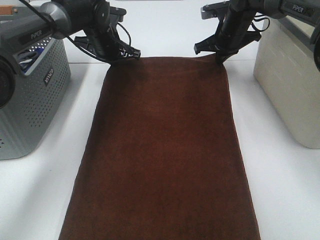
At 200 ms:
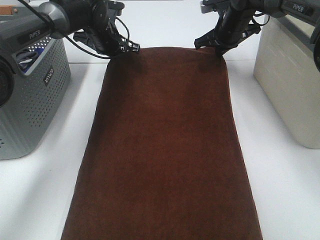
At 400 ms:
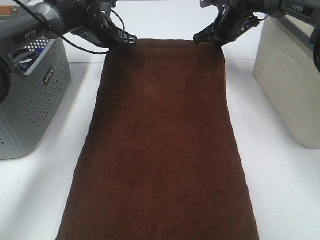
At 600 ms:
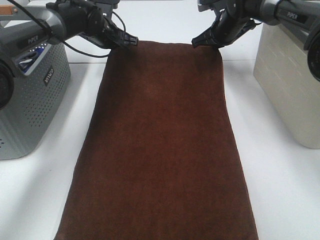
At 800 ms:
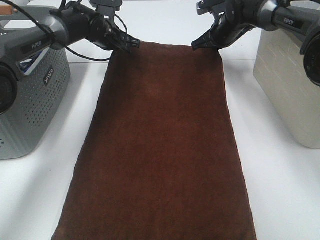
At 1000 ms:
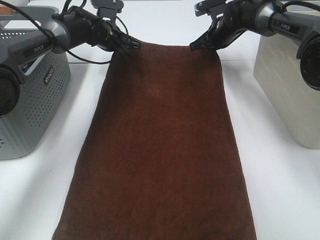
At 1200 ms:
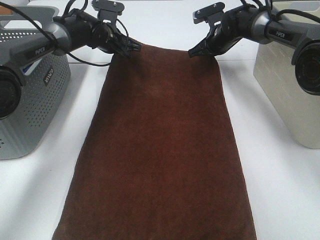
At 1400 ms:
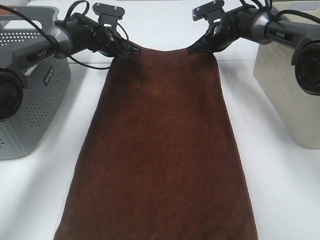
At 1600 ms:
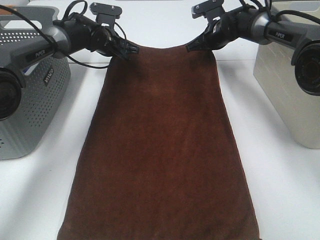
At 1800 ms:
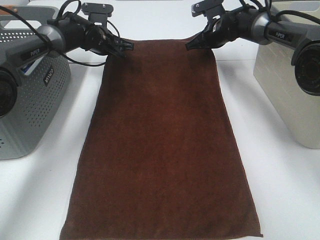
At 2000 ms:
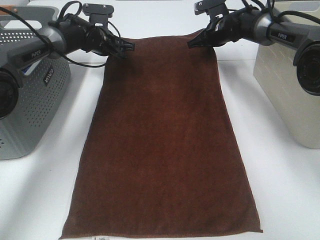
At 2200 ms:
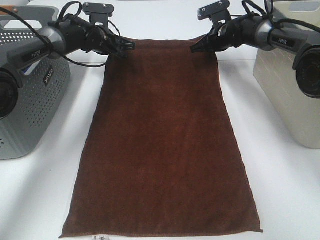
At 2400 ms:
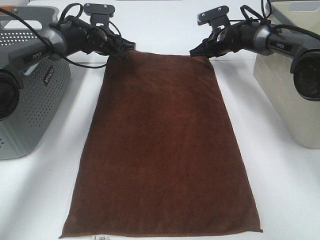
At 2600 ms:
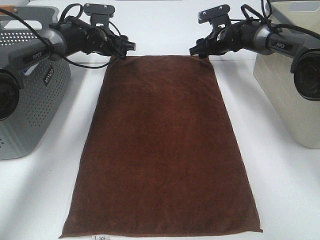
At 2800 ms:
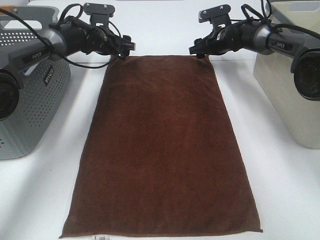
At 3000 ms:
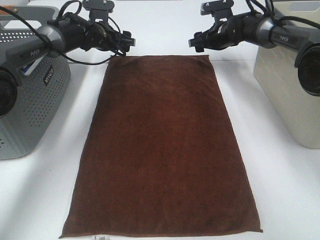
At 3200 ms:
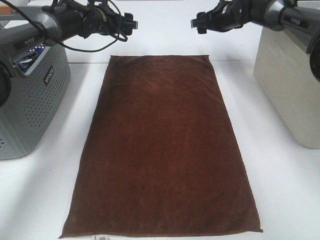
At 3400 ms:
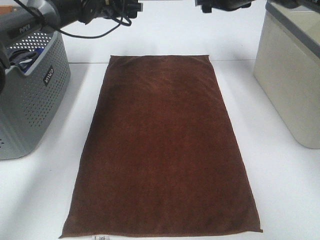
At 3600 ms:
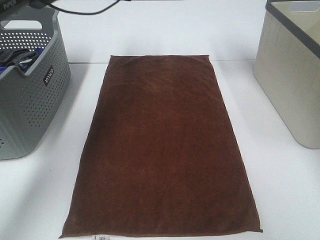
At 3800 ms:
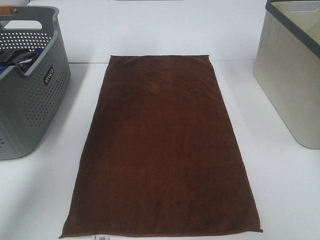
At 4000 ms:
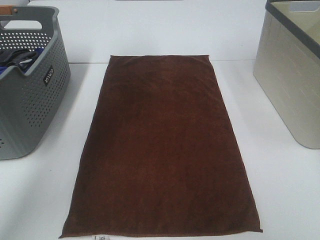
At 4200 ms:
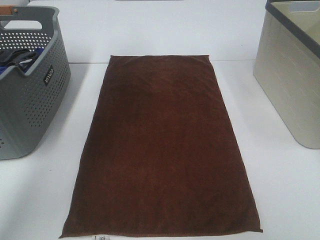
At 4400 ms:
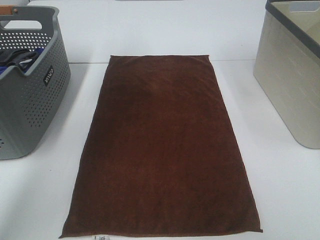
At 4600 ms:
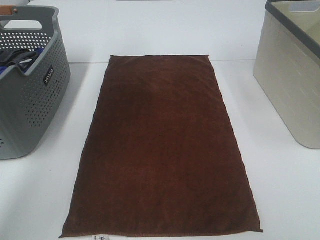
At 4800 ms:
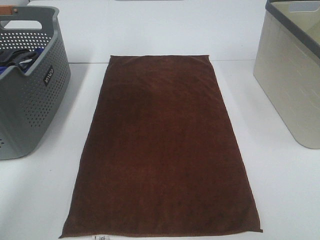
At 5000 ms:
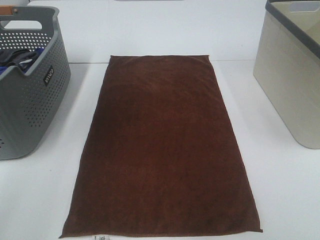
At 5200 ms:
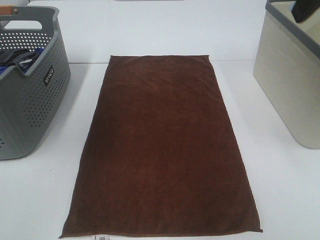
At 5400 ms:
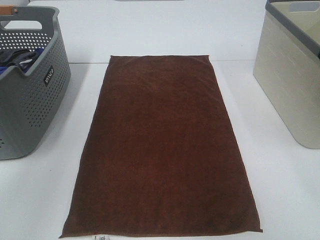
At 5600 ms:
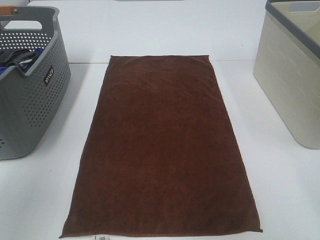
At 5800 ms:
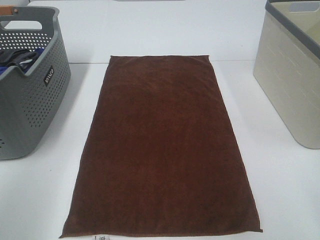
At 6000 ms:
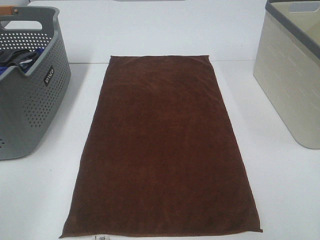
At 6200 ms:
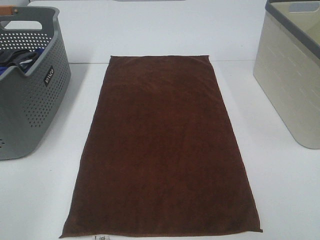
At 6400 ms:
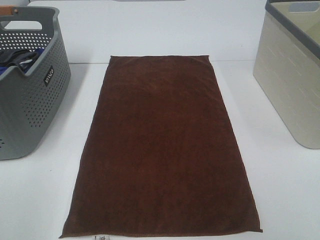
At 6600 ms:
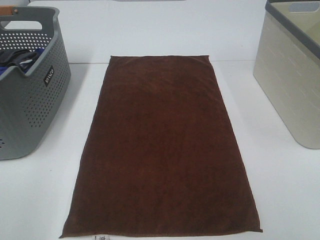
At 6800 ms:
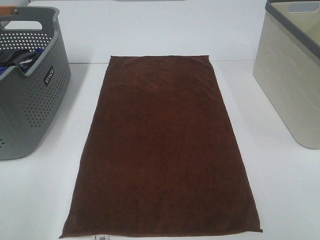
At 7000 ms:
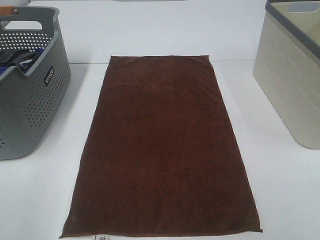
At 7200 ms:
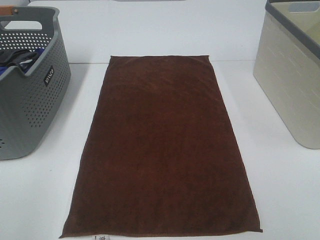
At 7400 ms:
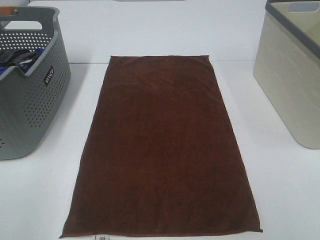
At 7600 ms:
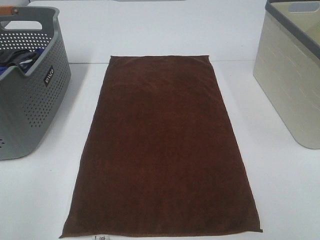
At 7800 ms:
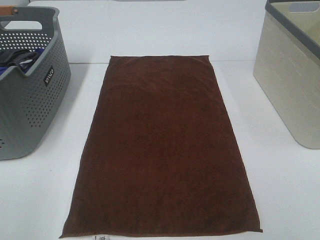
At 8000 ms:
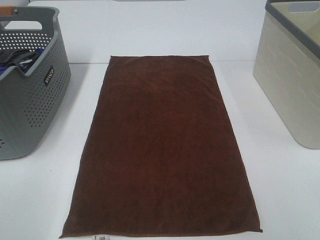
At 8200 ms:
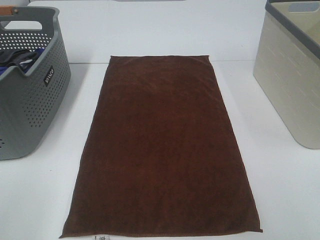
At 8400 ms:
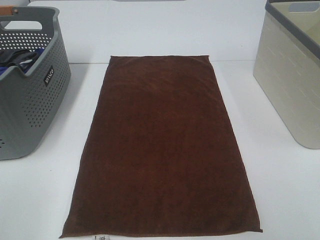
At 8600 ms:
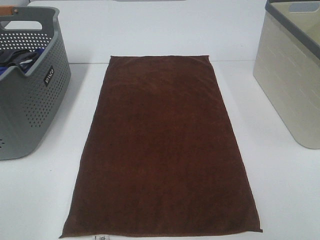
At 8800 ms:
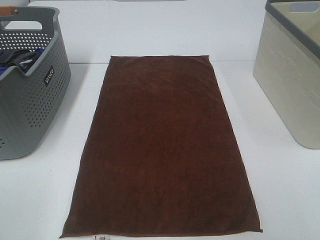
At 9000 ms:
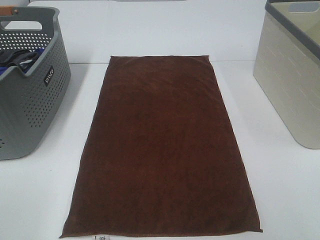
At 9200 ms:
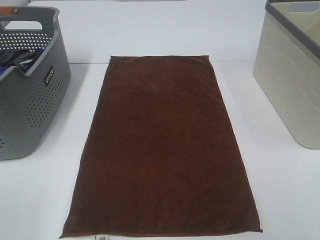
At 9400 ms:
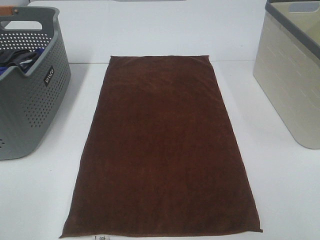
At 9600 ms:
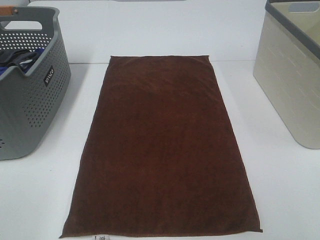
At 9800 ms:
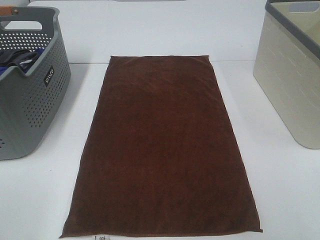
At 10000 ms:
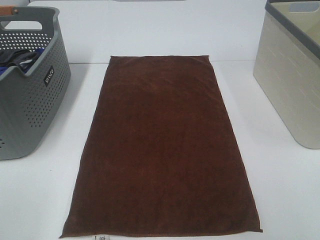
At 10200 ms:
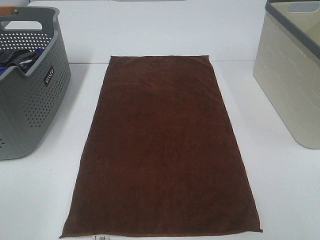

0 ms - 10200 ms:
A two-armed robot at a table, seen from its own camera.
Task of the whole recording: Remove the towel and place it.
0 ms - 1400 ms: The right gripper moves some 5 cm.
1400 ms - 3000 ms: The right gripper opens its fingers; the left gripper opens its fingers.
3000 ms - 4400 ms: The grippers both shift upward and backward by about 30 cm.
4400 ms - 5800 ms: Both grippers move backward, roughly 35 cm.
8800 ms - 10200 ms: Both grippers stay about where they are.

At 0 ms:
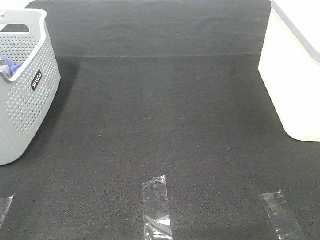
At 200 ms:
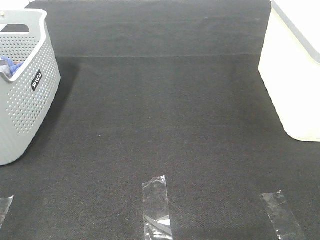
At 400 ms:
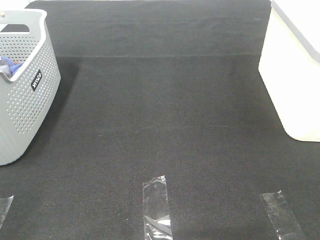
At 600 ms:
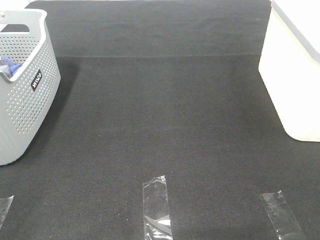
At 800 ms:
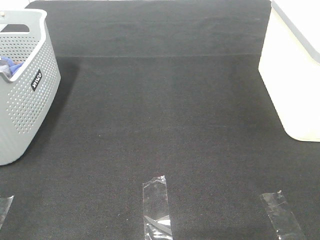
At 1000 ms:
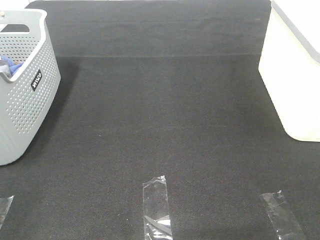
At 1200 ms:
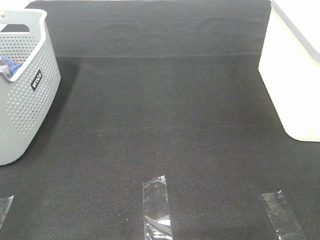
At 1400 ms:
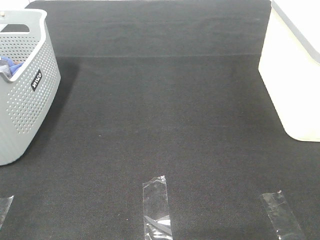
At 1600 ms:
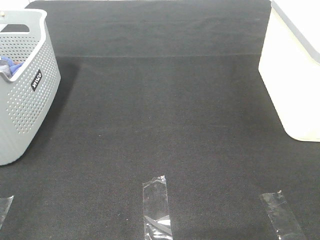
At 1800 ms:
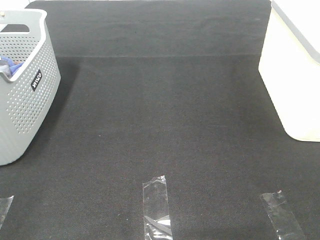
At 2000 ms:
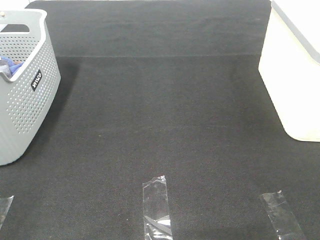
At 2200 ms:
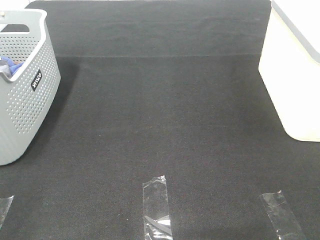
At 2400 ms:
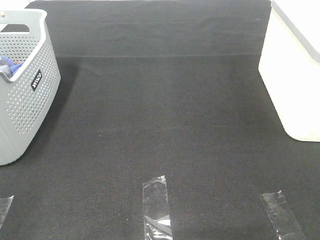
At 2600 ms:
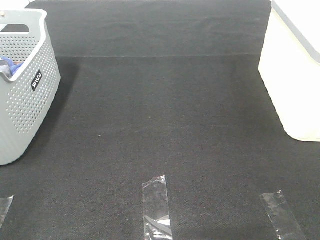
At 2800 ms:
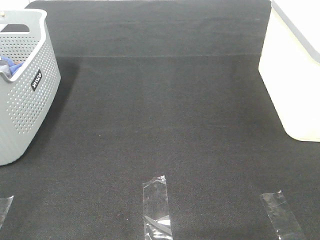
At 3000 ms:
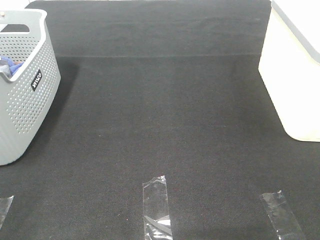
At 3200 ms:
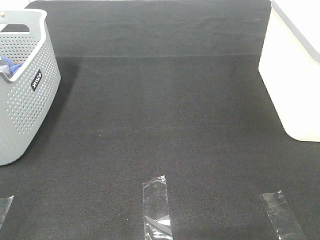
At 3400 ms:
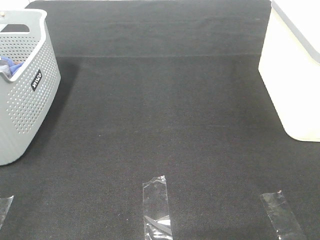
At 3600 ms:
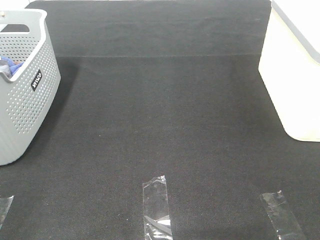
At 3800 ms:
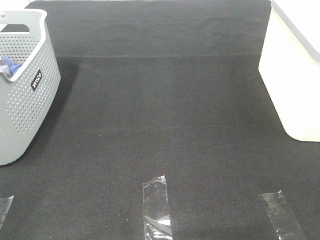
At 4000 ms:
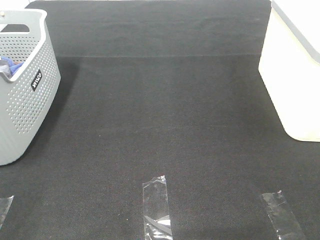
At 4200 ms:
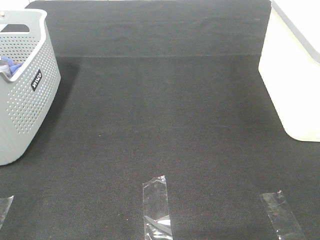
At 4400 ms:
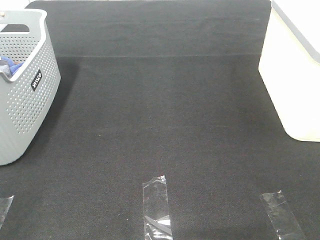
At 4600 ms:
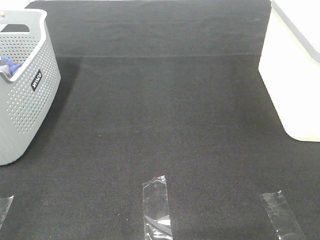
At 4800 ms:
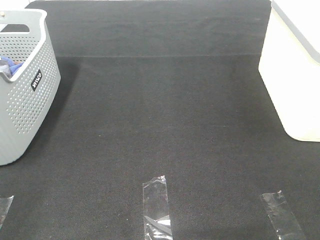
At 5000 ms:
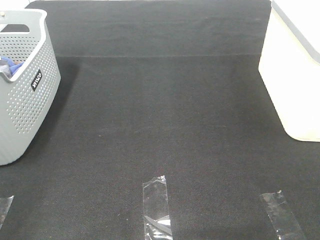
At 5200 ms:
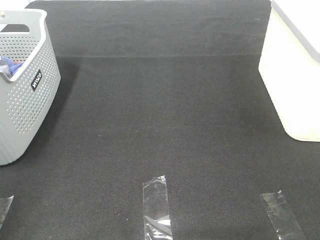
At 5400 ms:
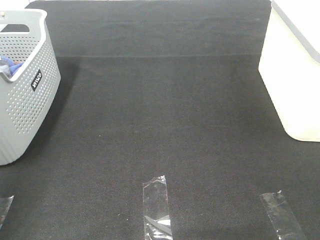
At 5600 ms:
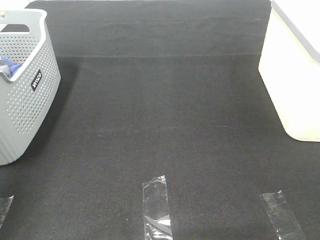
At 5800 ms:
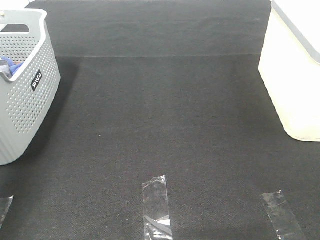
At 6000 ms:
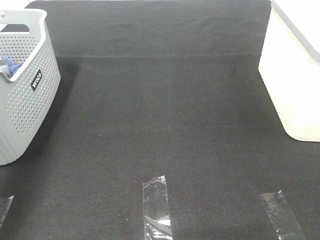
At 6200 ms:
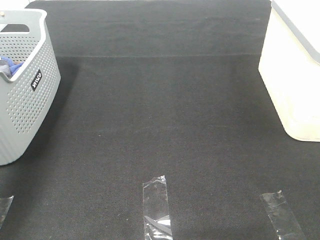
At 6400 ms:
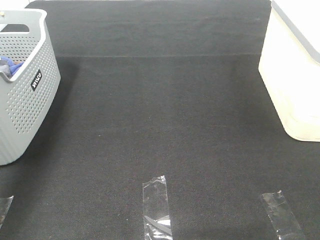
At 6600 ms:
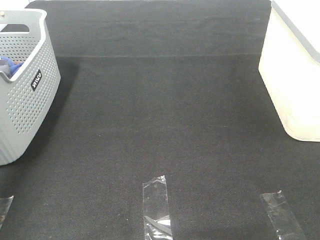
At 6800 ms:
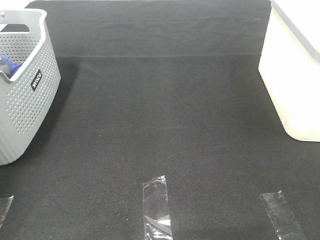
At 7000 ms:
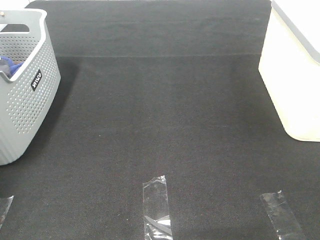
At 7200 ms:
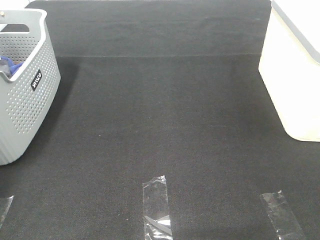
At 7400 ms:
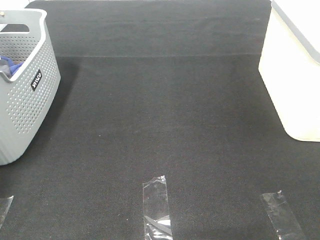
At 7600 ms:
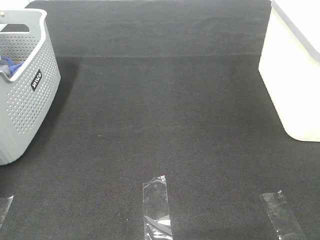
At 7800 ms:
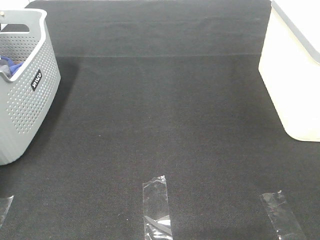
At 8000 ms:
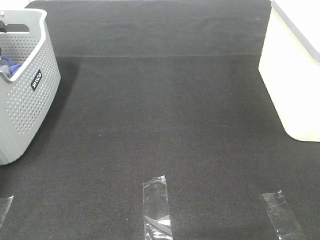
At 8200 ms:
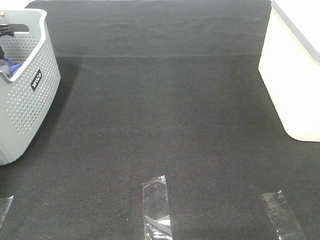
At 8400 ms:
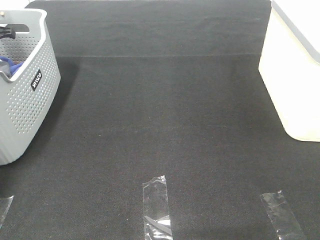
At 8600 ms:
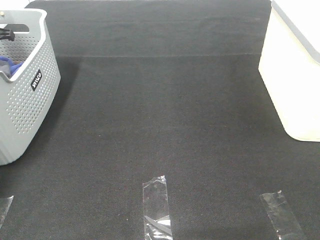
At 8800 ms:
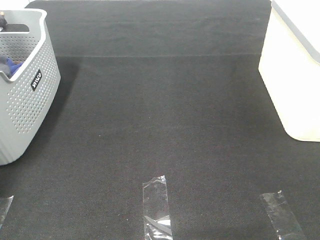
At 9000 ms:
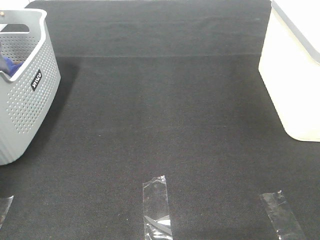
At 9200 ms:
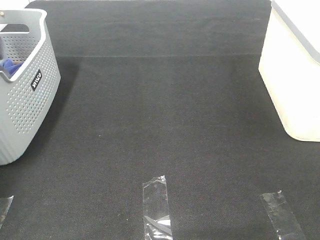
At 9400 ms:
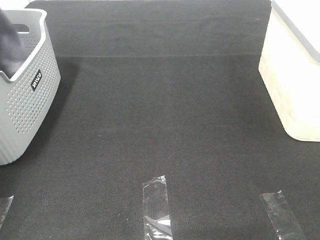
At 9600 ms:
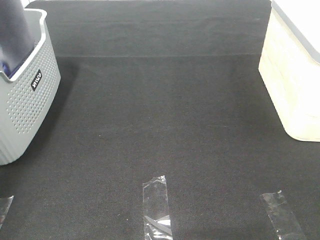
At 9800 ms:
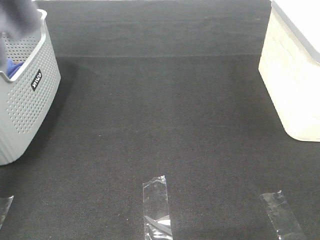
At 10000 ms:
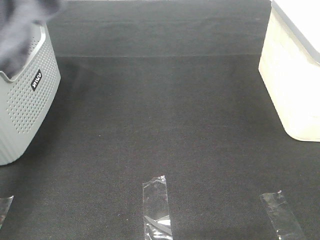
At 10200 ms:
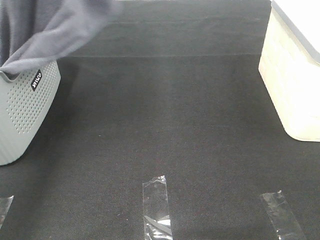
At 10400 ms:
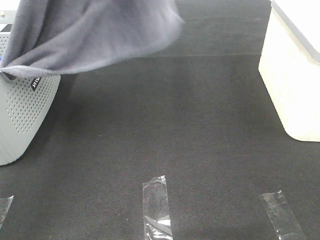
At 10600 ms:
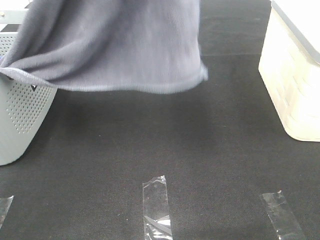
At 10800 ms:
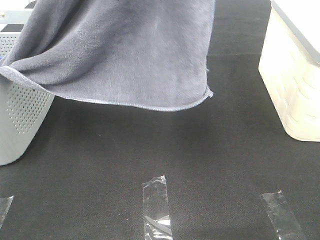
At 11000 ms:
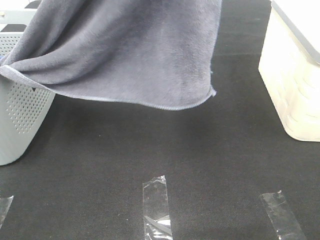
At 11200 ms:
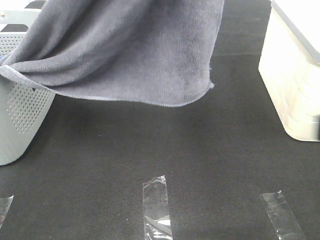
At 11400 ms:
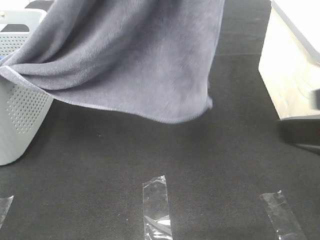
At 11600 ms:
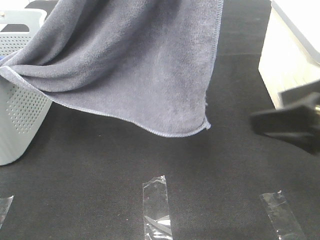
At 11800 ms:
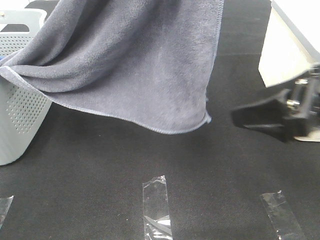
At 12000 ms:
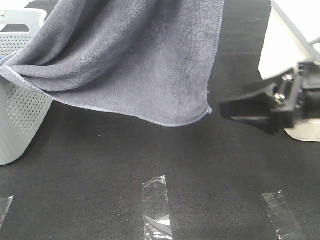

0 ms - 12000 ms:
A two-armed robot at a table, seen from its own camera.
Task of the whole recording: Remove the towel and place it.
0 ms - 4400 ms: Neither gripper changes place.
4400 ms - 6000 ms: The left gripper travels forward by some 25 cm, and closes up.
6000 ms - 7600 ms: The left gripper goes about 30 cm forward, to the left and downward.
7600 ms - 9000 ms: The left gripper moves upward, approximately 10 cm, and closes.
9000 ms - 10400 ms: The left gripper heads to the right, upward and backward, covering approximately 35 cm.
10400 ms - 12000 ms: The left gripper is displaced to the right and backward by approximately 10 cm. The right gripper goes some 20 cm forward.
